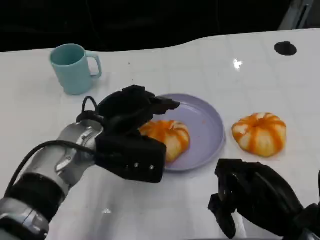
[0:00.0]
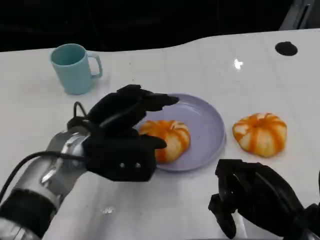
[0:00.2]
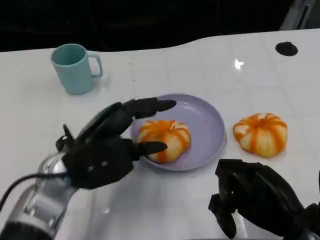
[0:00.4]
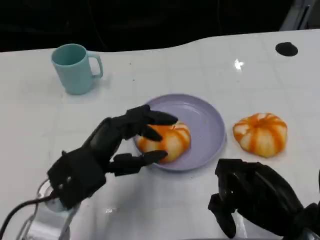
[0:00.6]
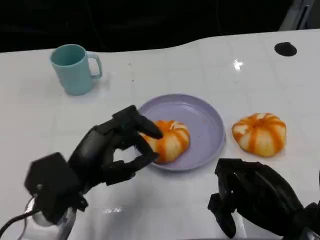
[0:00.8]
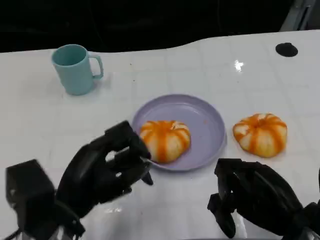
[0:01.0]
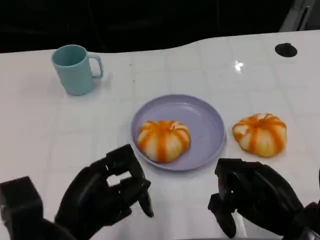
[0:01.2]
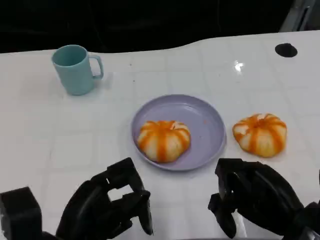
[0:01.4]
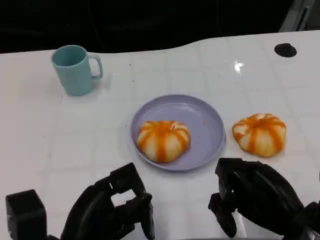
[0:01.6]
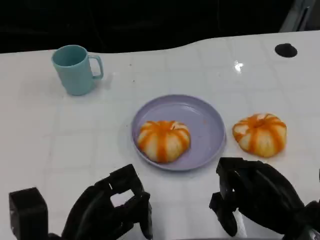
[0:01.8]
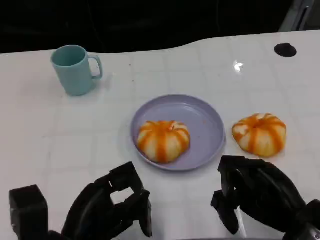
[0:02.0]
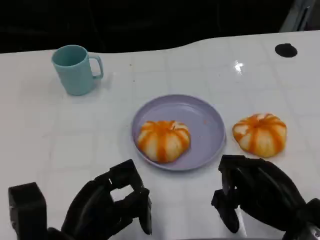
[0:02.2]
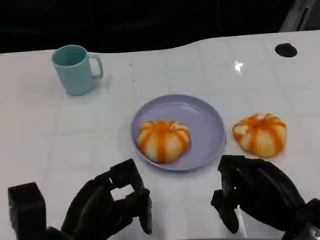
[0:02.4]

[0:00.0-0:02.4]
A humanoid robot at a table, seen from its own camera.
Task of the whole recording: Grasp the bread from the table and place it into the plate.
0:00.0 to 0:01.2: The left hand travels backward by approximately 15 cm.
0:01.2 to 0:02.4: The hands stay close to where they were, moving slightly.

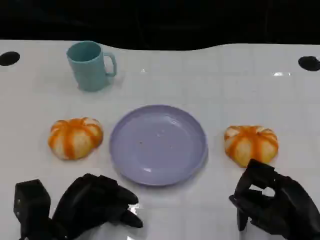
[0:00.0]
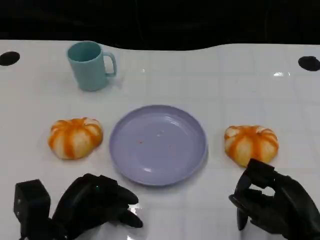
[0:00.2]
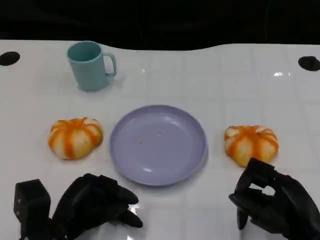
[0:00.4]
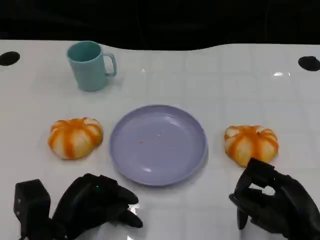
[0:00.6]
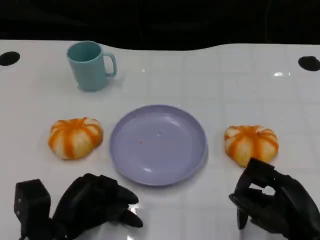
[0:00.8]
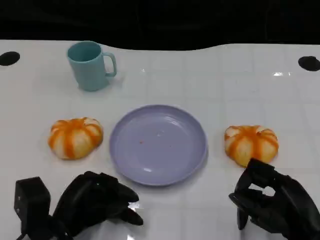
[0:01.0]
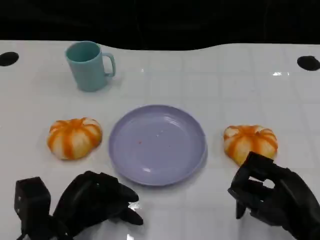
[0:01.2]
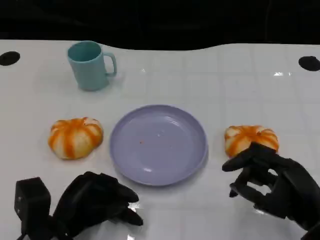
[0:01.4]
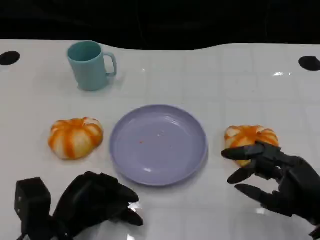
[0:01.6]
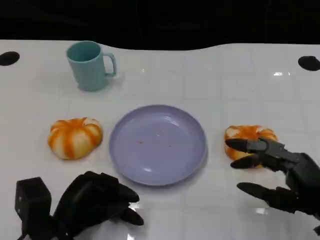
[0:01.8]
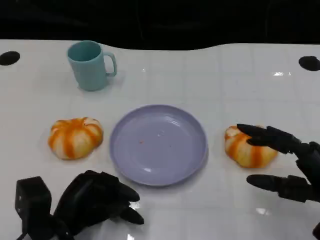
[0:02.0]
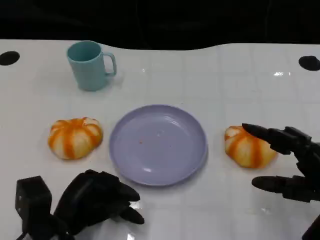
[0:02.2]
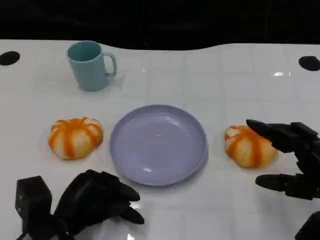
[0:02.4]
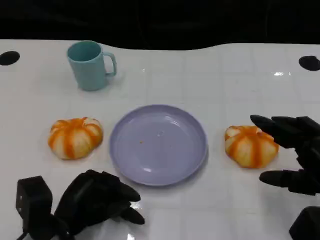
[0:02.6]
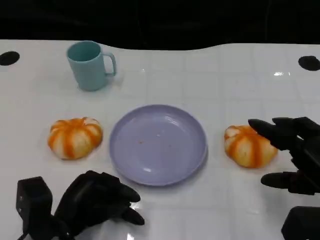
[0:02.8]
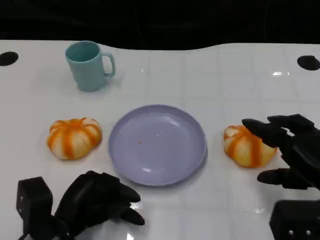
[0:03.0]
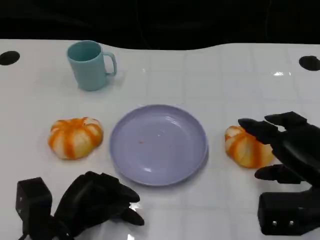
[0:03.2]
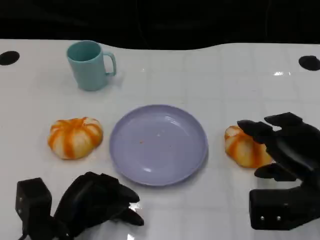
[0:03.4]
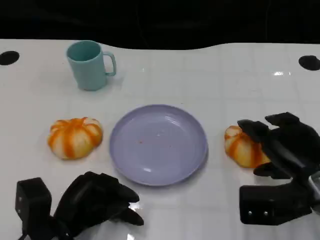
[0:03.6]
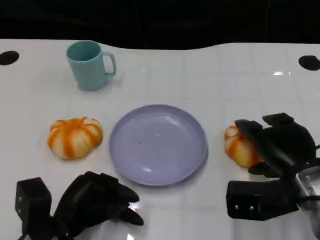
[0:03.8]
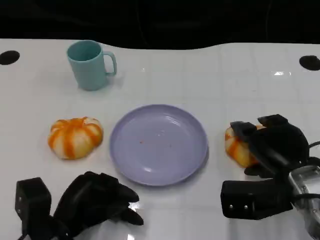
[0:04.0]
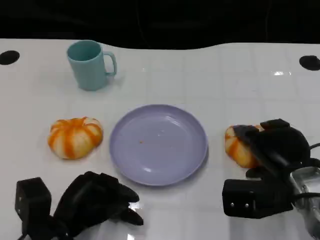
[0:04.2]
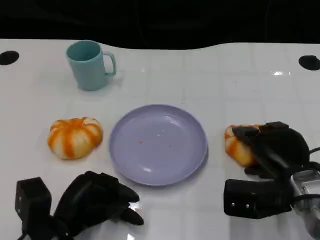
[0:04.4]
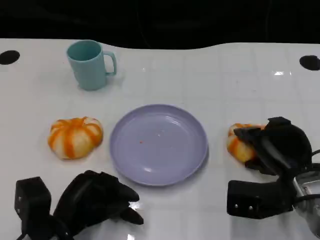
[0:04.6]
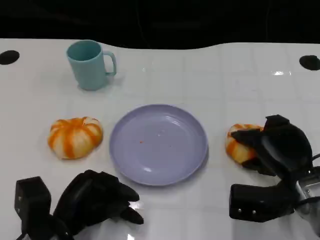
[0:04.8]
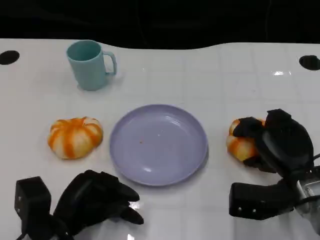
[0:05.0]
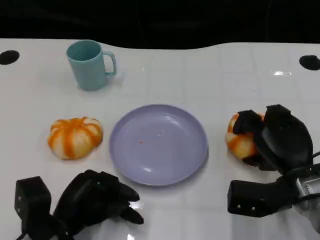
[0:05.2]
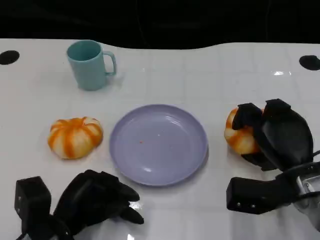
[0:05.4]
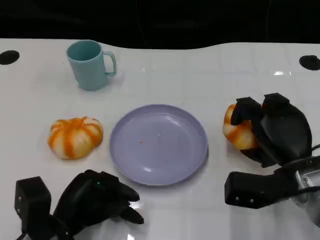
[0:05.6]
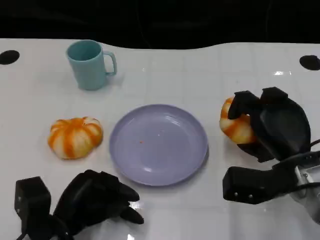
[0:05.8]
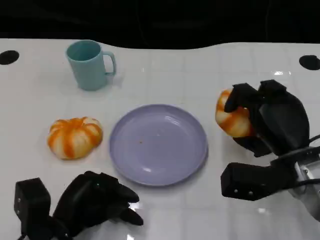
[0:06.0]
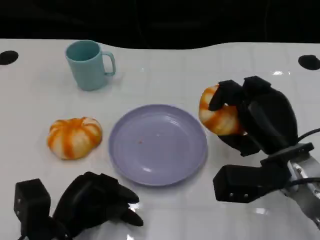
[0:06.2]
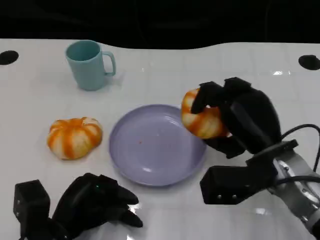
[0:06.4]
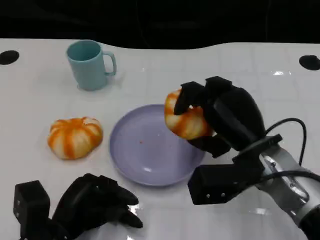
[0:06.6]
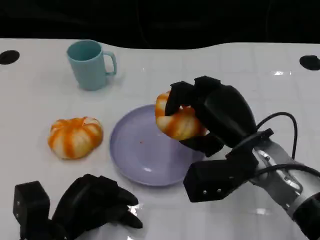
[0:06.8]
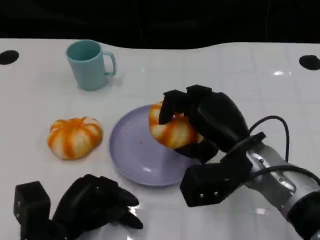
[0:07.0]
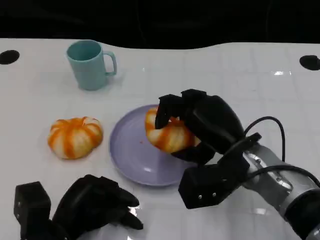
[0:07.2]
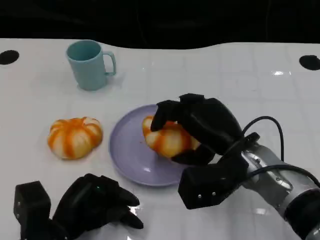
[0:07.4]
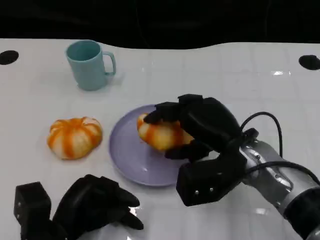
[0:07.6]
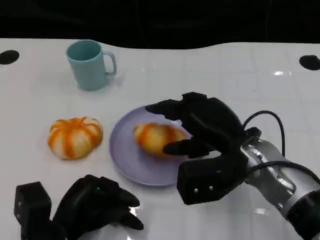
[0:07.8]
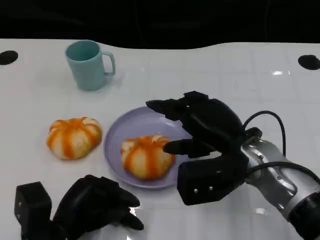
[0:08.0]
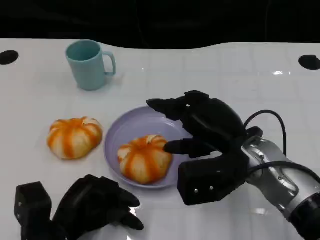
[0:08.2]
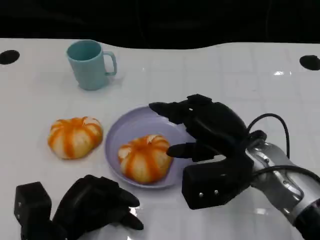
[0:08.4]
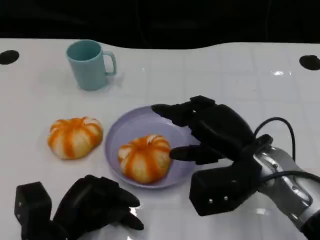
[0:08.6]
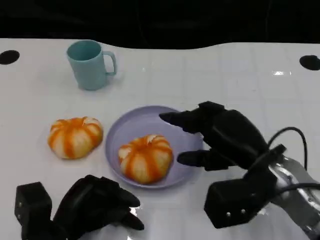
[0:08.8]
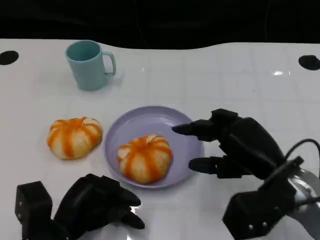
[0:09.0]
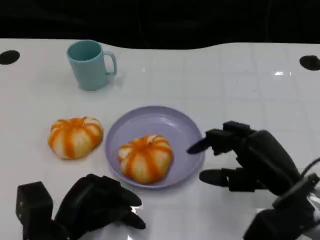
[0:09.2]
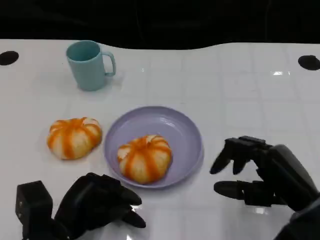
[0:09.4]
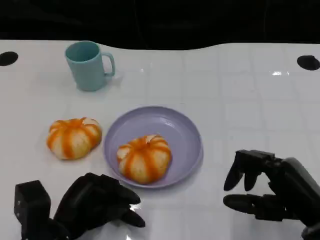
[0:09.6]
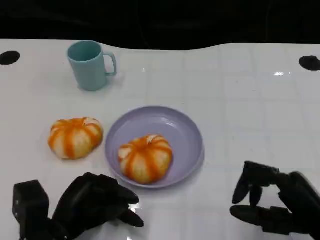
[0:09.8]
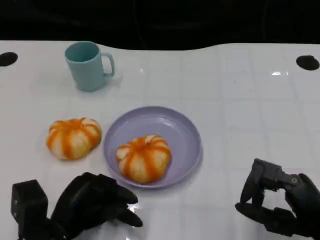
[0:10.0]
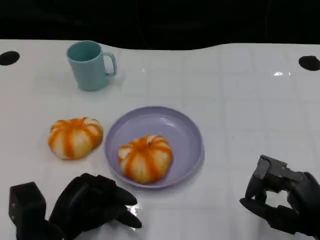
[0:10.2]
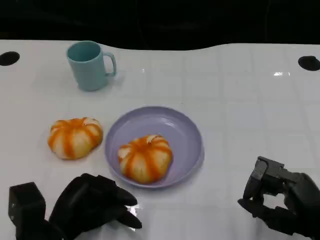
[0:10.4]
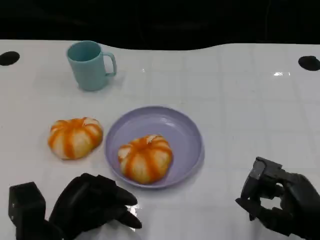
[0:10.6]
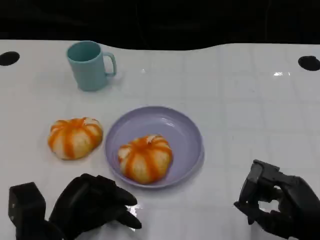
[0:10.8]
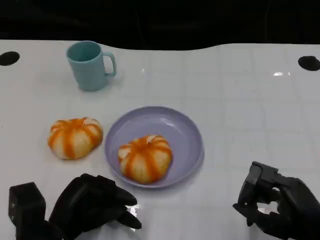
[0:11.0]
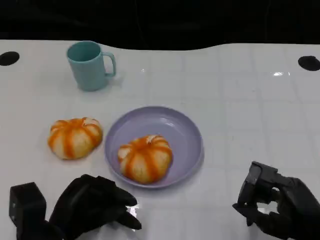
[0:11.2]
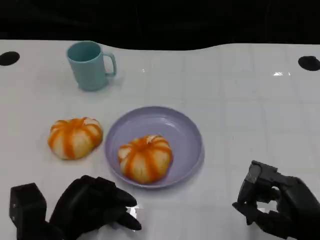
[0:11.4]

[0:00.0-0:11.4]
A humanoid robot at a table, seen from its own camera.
Task of the whole recording: Grasp the bread from the table and place it into the plate.
0:00.0 to 0:01.4: The hands make only small movements.
0:02.8 to 0:04.2: The right hand heads to the left and forward, covering some 10 cm.
0:05.6 to 0:07.2: The right hand travels to the left by some 10 cm.
0:07.2 to 0:08.6: There are only small adjustments of the hands.
0:08.6 to 0:10.0: The right hand shifts about 15 cm backward and to the right.
0:10.0 to 0:11.4: The hands make only small movements.

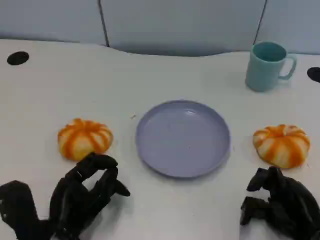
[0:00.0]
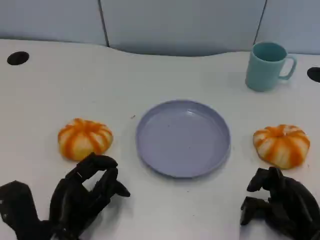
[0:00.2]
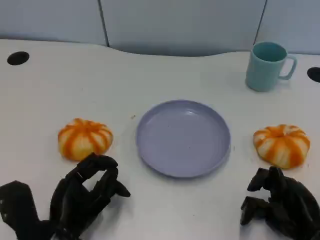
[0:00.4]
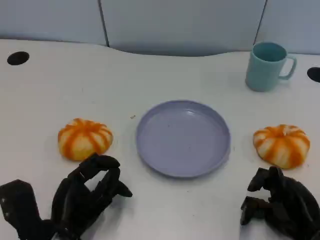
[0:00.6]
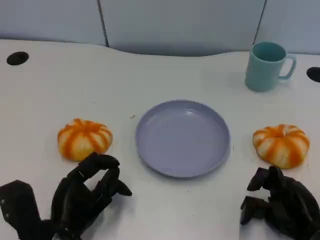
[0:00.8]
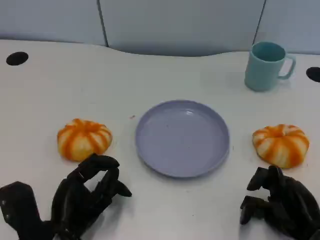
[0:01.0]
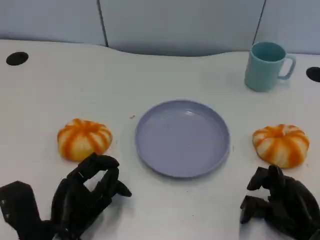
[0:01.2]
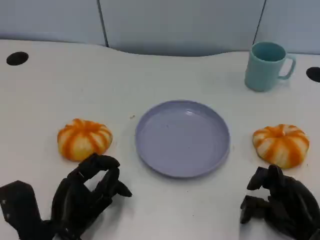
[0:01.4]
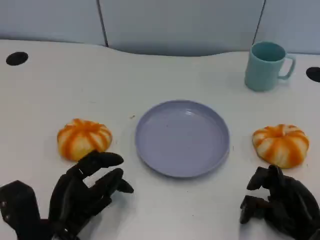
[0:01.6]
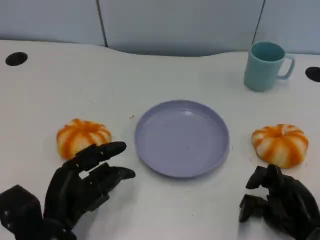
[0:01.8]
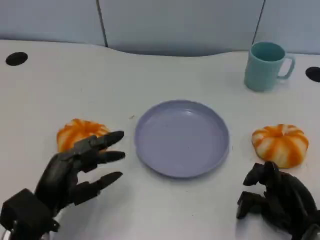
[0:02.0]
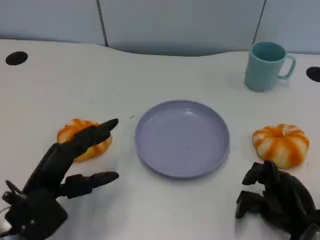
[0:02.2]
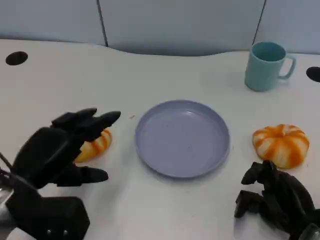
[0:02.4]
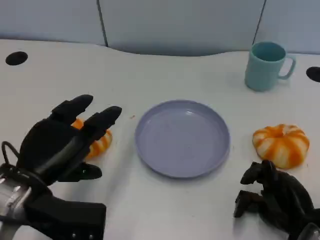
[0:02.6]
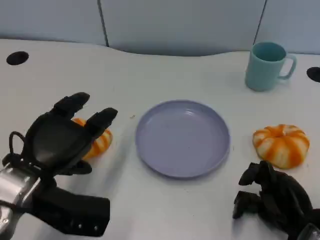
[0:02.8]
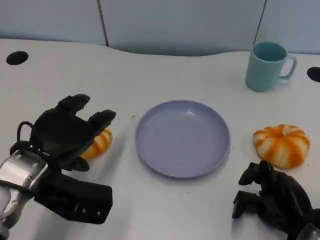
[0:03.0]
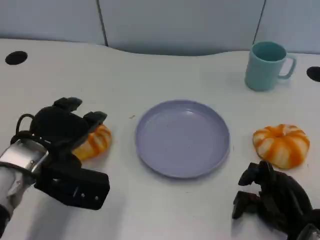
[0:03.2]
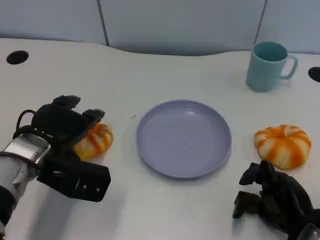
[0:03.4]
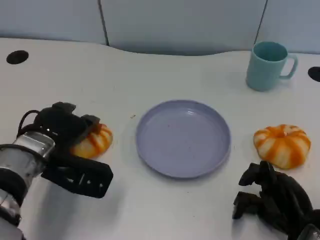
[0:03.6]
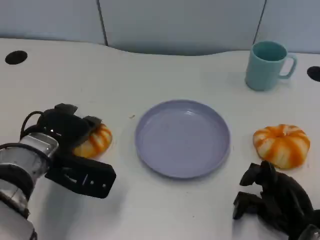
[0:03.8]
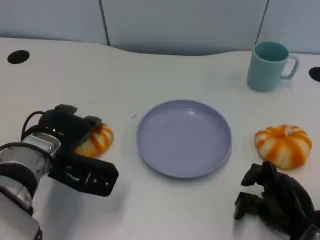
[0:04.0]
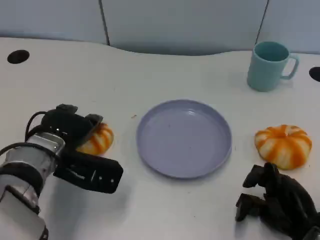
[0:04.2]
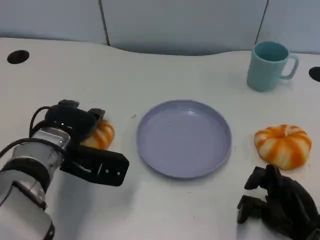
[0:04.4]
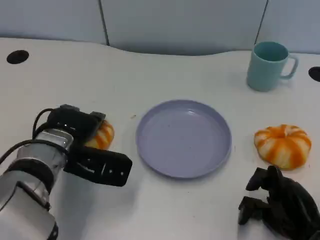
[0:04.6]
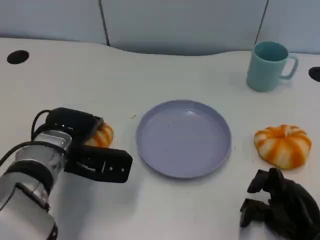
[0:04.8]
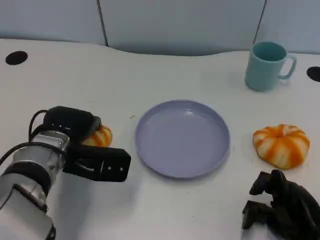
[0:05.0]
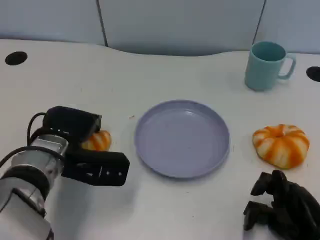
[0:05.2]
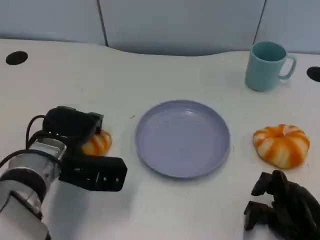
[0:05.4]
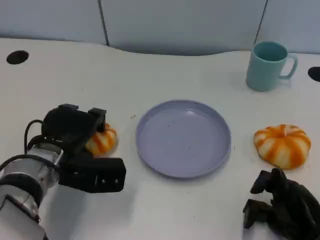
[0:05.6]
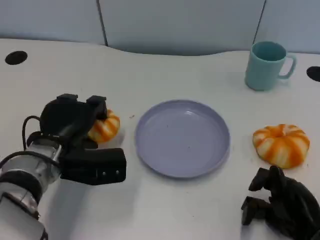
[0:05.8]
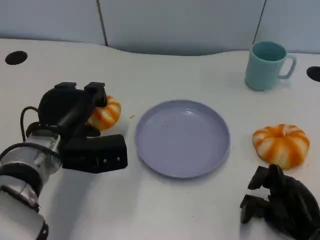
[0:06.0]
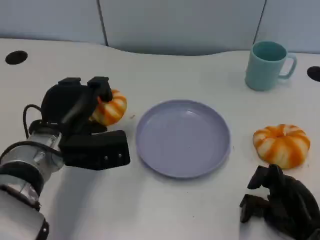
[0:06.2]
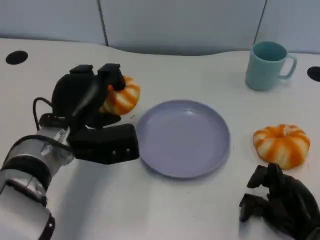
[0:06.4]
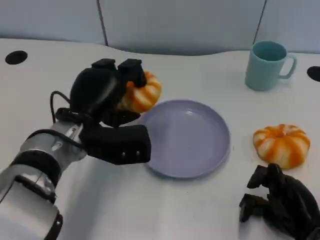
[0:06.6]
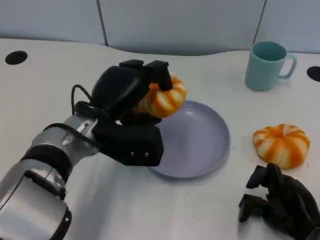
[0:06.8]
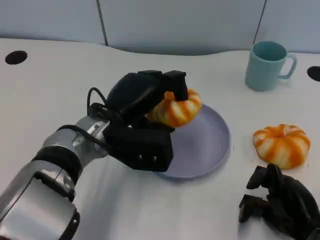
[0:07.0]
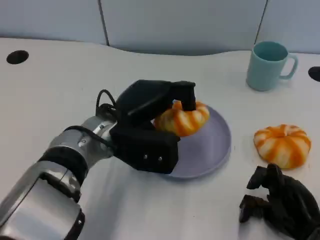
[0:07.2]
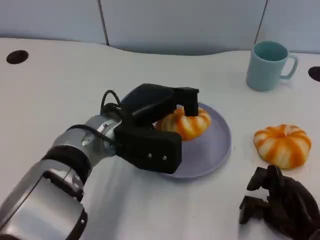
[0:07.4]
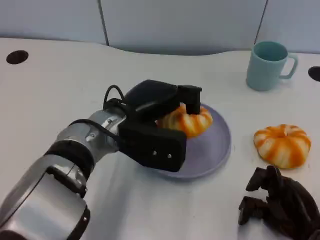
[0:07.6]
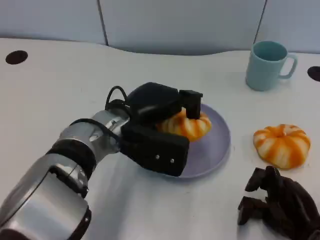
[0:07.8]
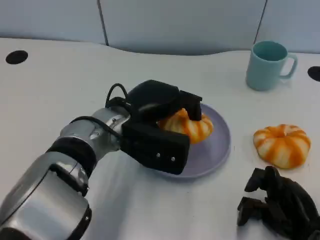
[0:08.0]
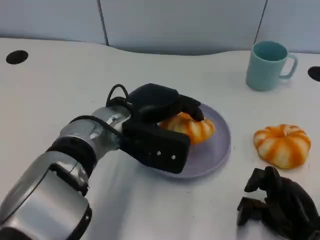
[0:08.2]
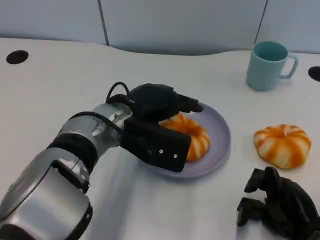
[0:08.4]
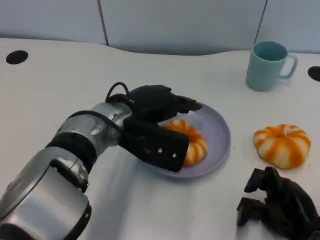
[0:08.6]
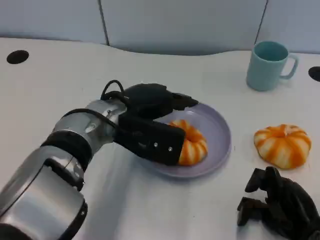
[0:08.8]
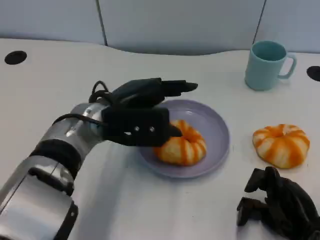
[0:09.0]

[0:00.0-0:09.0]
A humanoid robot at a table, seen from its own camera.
Task of the whole recording: Grasp the bread from the table and place it into the plate.
0:00.0 to 0:01.6: The hands stay close to where they were, moving slightly.
0:01.6 to 0:03.0: The left hand shifts roughly 10 cm upward and forward.
0:03.0 to 0:04.4: The left hand changes place by some 5 cm.
0:06.0 to 0:07.6: The left hand moves to the right, about 10 cm.
0:07.6 to 0:09.0: The hands move only a little.
